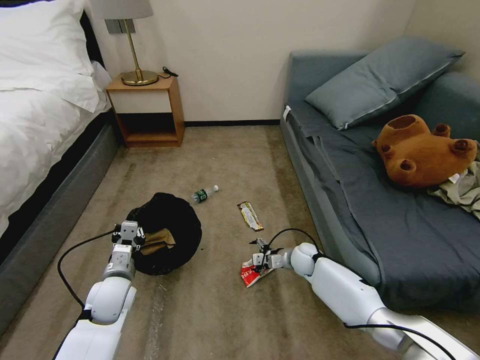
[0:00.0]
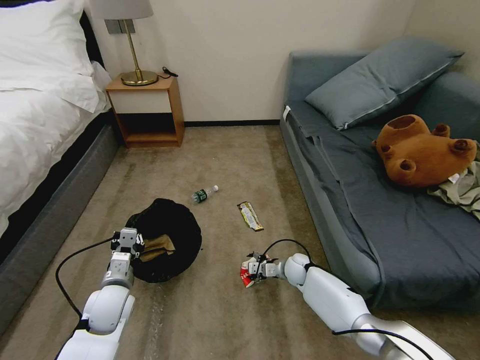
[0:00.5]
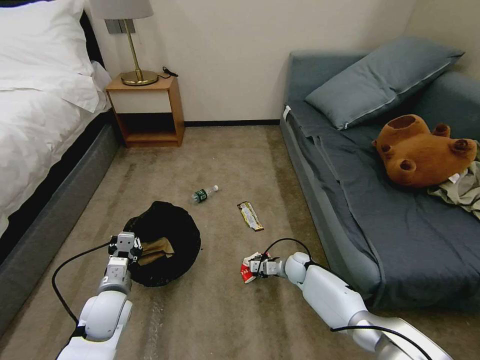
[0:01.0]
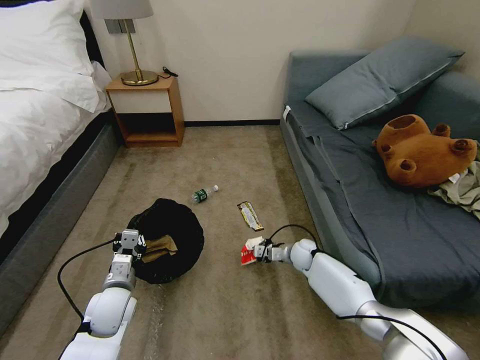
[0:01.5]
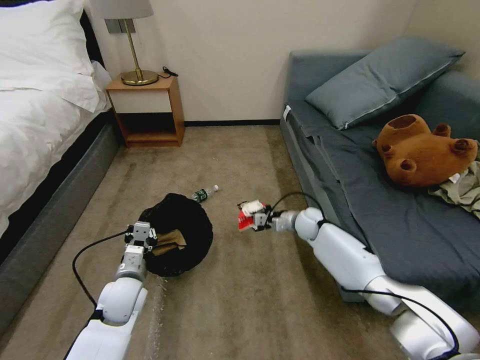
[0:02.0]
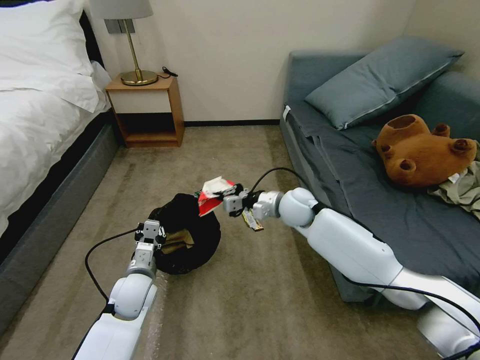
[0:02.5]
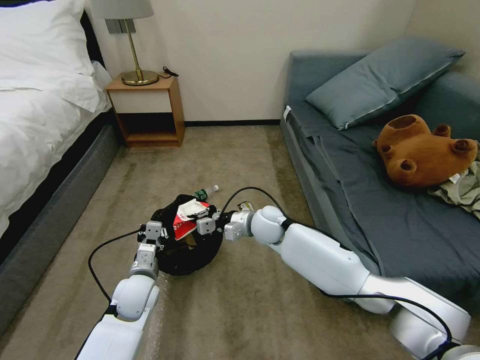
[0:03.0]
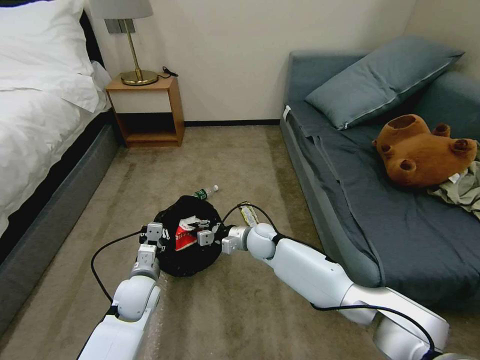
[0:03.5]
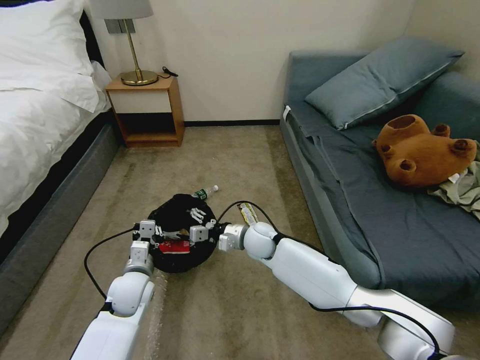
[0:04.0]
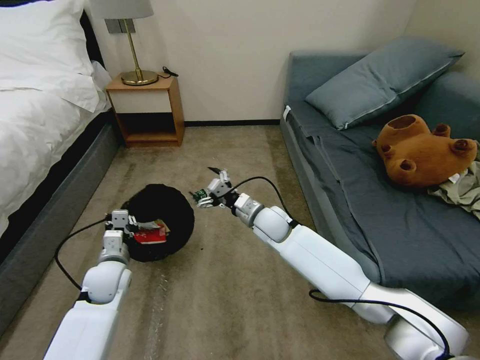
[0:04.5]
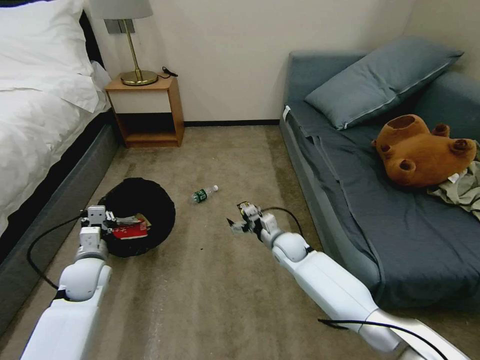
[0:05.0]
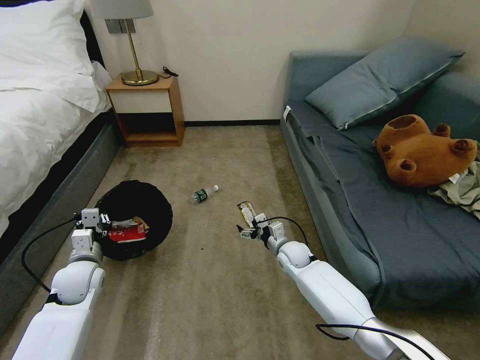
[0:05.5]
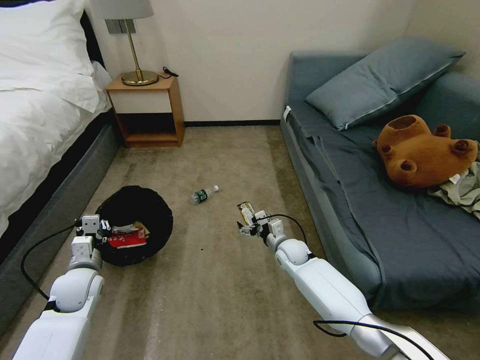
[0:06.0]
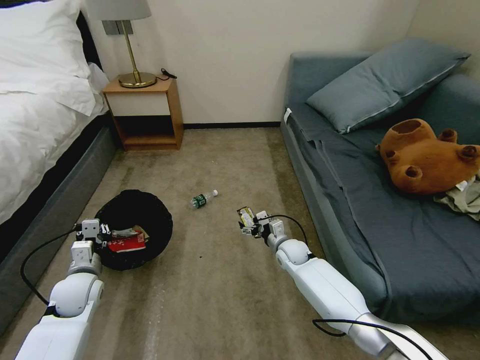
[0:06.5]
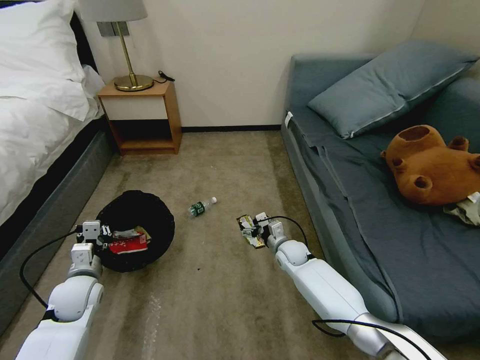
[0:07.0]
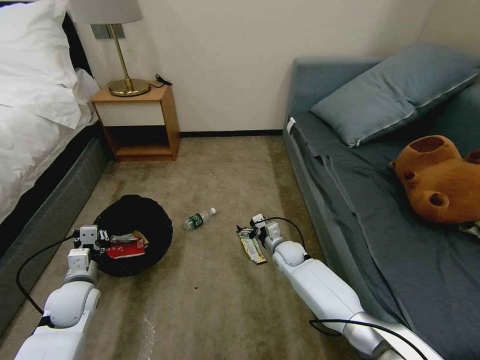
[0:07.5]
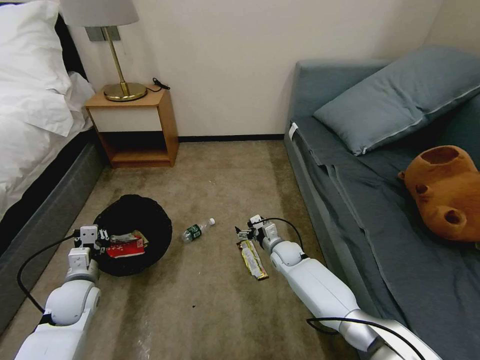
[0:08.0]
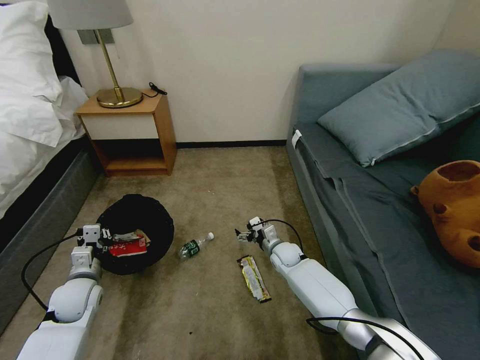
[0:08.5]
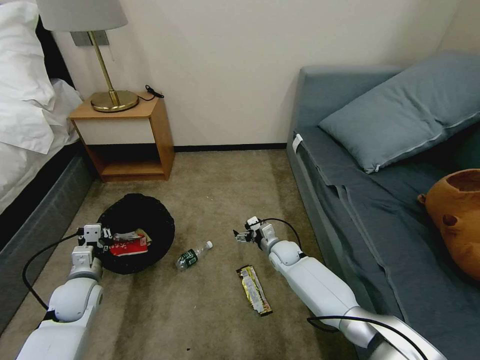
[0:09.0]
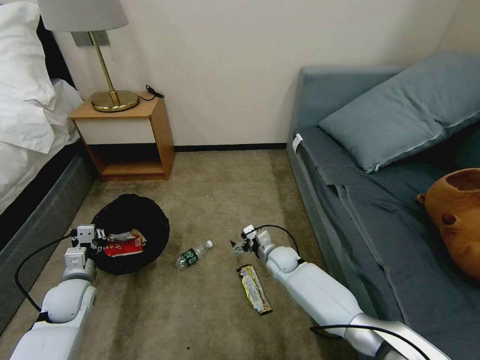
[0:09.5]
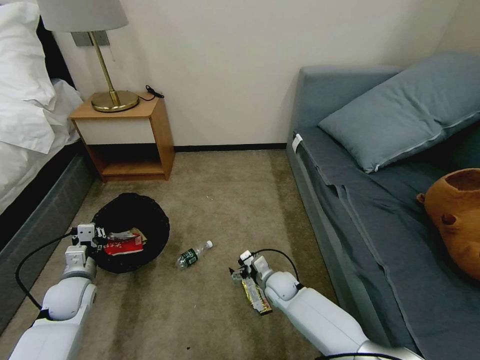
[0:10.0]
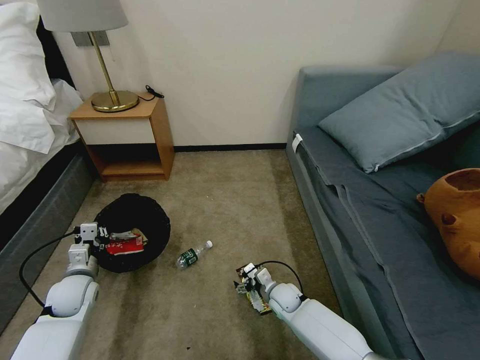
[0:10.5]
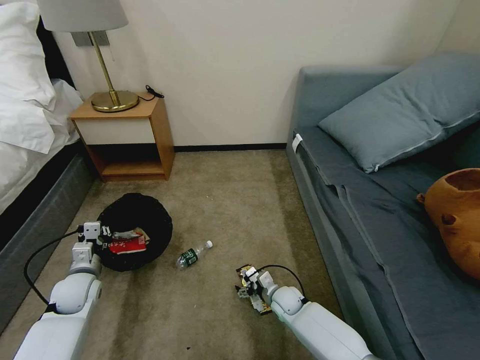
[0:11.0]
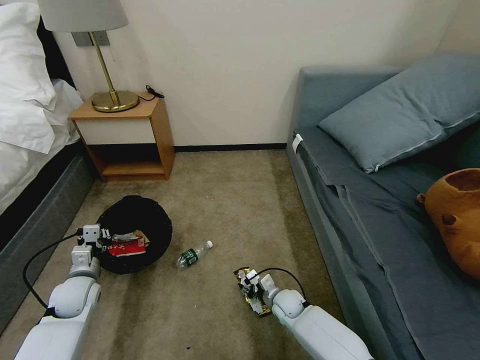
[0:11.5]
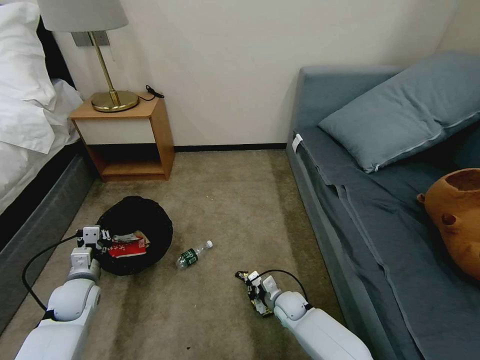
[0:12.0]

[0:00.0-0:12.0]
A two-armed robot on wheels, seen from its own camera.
Task of the whole recording: Pick up the trash bin, then pick up the garbage on the floor and place it into the trash bin.
0:00.0 to 0:02.0: The right gripper goes approximately 10 cm upward and forward, and closes up.
0:02.0 to 0:04.0: The right gripper goes some 20 cm to the left and backward, and opens up.
0:04.0 to 0:06.0: The left gripper shifts roughly 10 cm to the left, while the right gripper travels to the right and downward by approximately 15 cm.
0:08.0 to 0:10.0: The right gripper shifts approximately 10 cm backward.
0:10.0 to 0:12.0: The right gripper shifts by some 5 cm, and closes up.

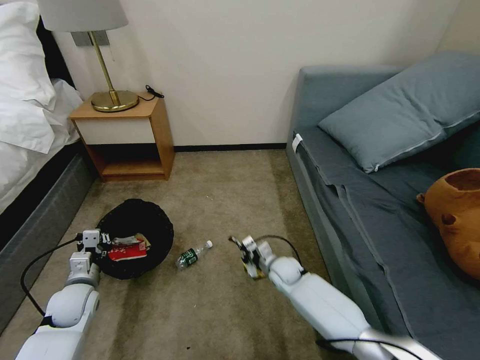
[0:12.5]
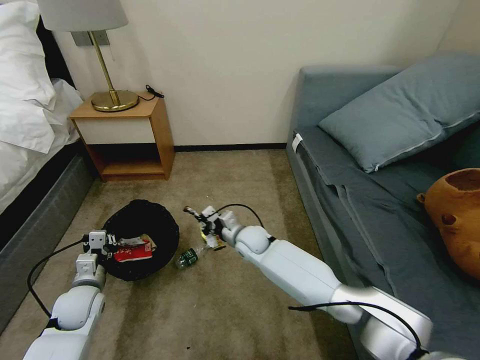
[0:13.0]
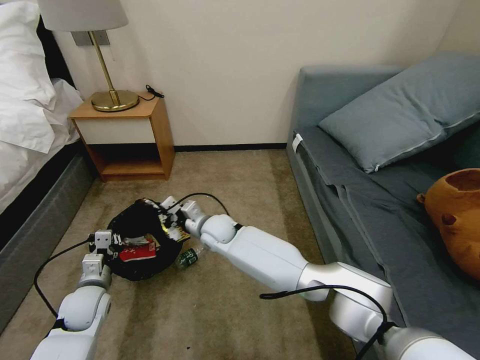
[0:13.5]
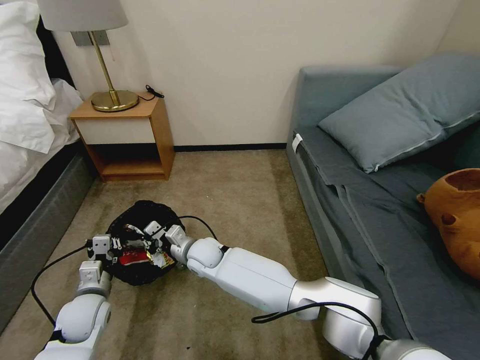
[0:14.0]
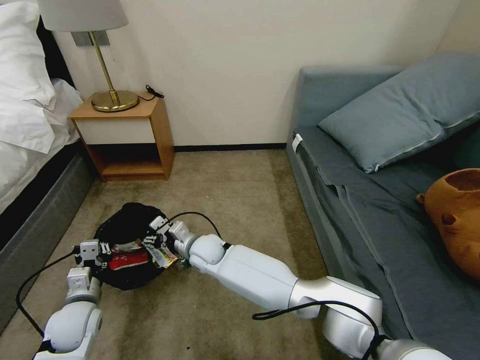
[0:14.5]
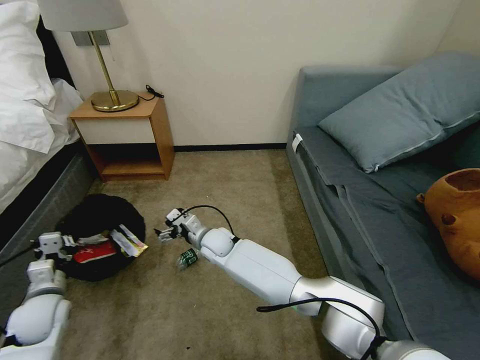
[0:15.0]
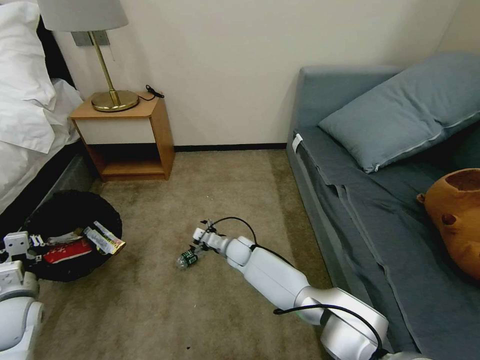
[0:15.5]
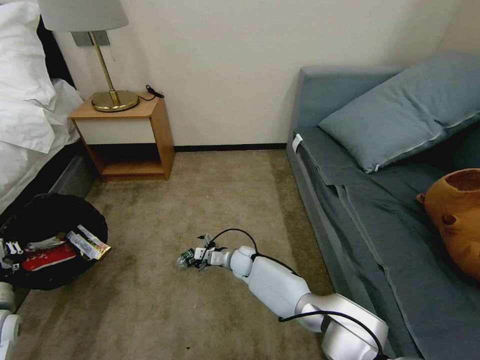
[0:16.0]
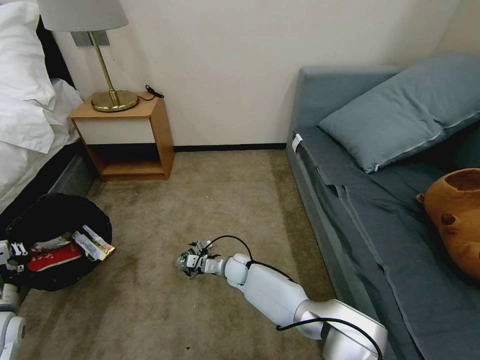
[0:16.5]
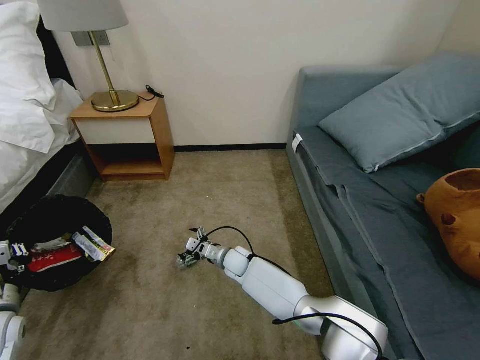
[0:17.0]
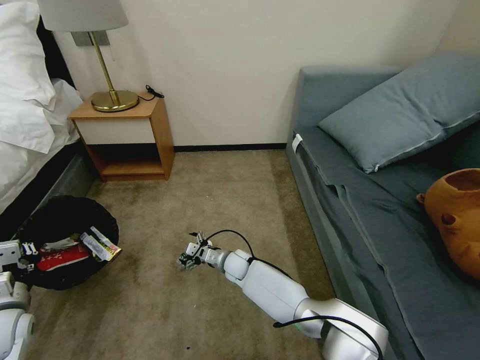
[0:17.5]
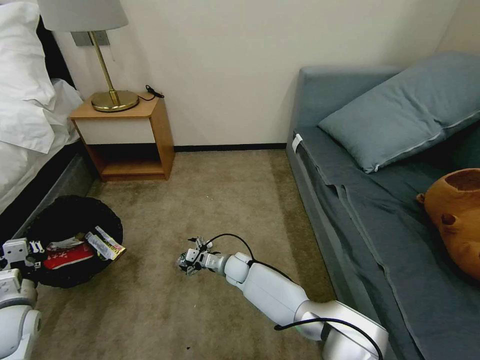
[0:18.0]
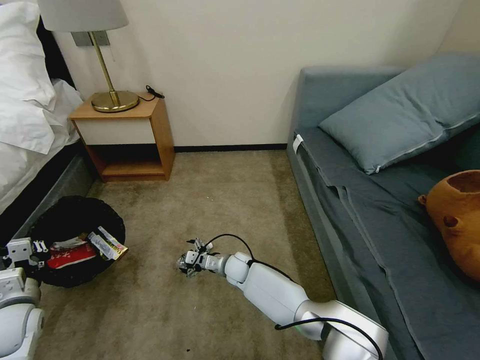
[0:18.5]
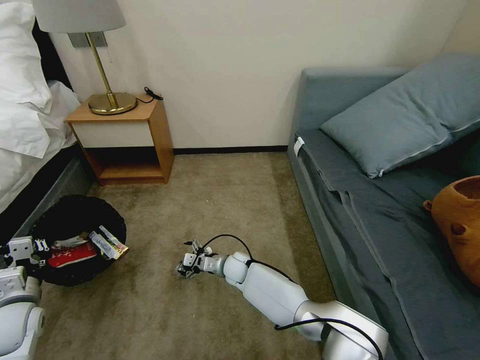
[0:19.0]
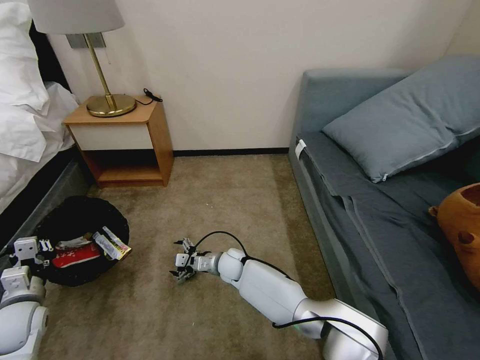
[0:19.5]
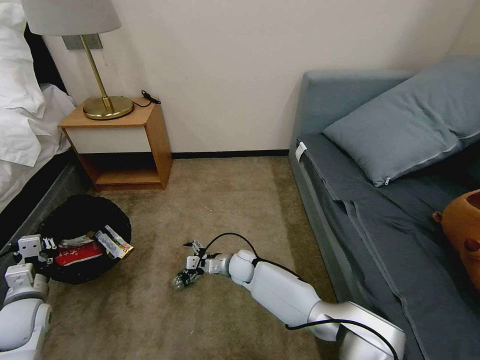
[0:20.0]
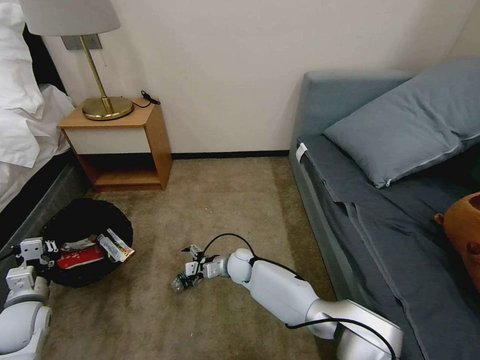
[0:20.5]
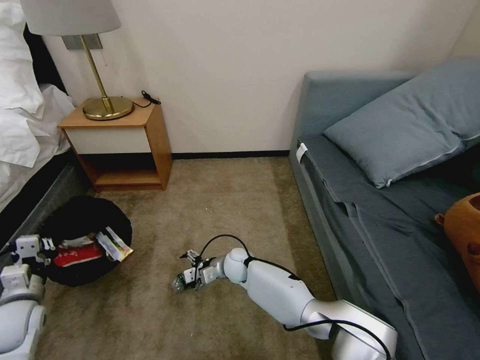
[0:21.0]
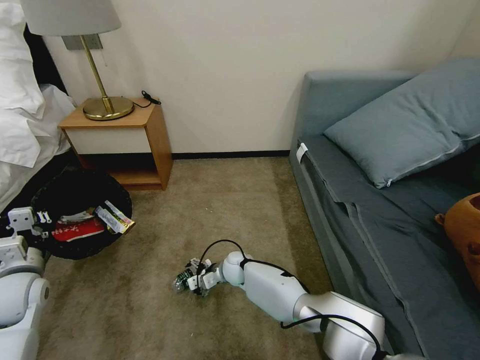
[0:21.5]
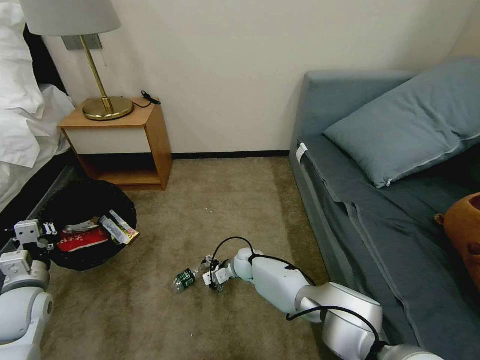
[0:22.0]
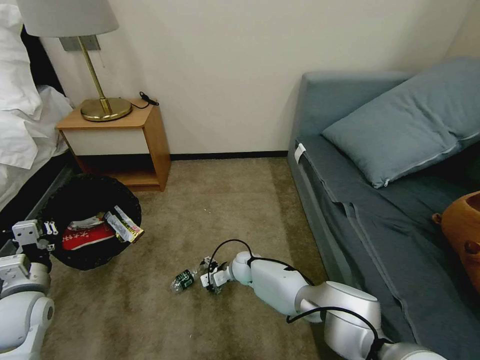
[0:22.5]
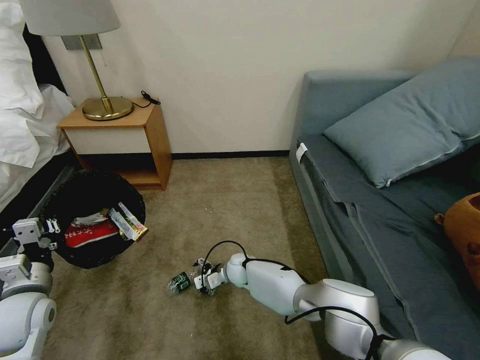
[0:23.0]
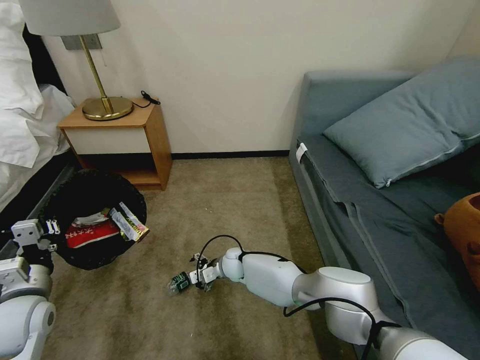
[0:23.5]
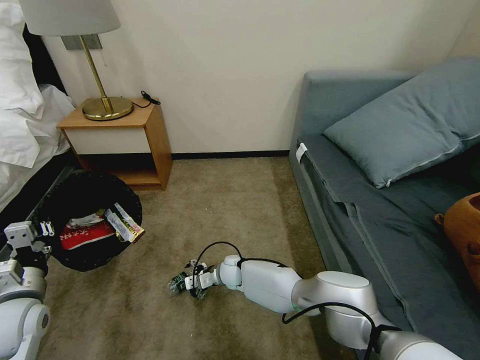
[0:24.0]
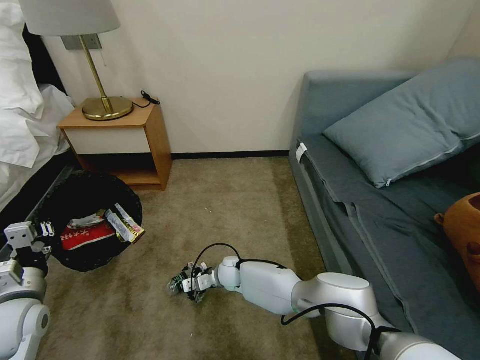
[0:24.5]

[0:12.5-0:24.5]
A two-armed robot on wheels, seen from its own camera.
Task of the whole recording: Pick up the trash bin, then pick up the garbage on the floor and place it into the trash bin.
0:12.5 to 0:14.5: The right gripper goes roughly 25 cm to the left and upward, and opens up, while the left gripper shifts by some 5 cm.
0:14.5 to 0:16.5: The left gripper travels to the left and upward by approximately 15 cm. Meanwhile the right gripper moves downward and to the right, roughly 15 cm.
0:16.5 to 0:18.5: The grippers make only small movements.
0:20.5 to 0:22.5: The left gripper goes roughly 5 cm upward, while the right gripper ends up approximately 5 cm from where it was.
0:22.5 to 0:24.5: The grippers stay close to where they were, moving slightly.

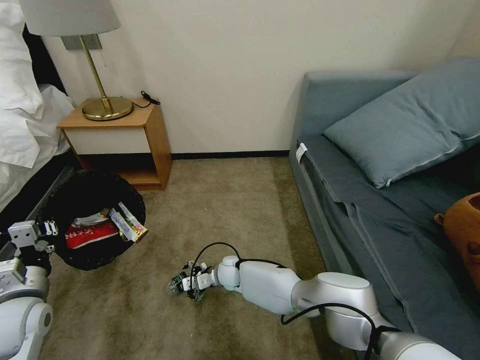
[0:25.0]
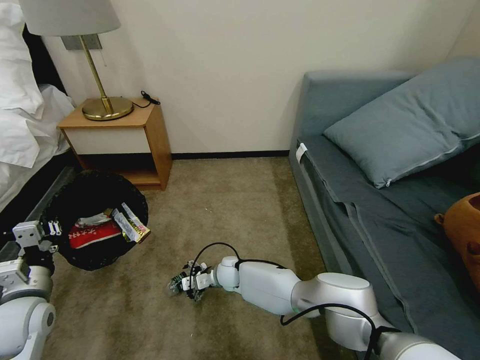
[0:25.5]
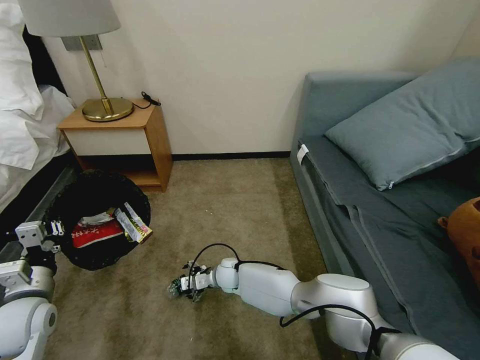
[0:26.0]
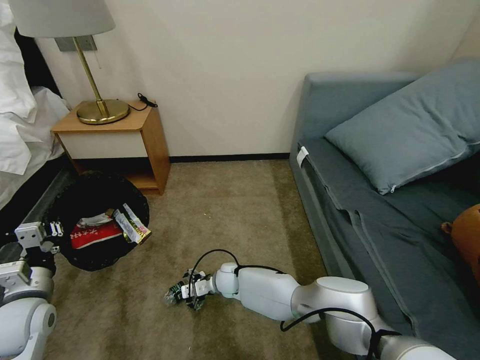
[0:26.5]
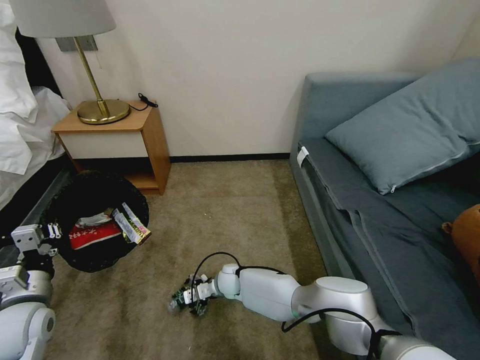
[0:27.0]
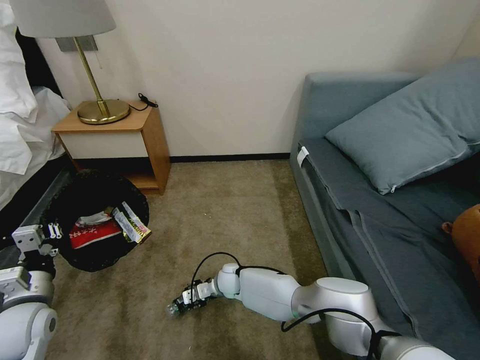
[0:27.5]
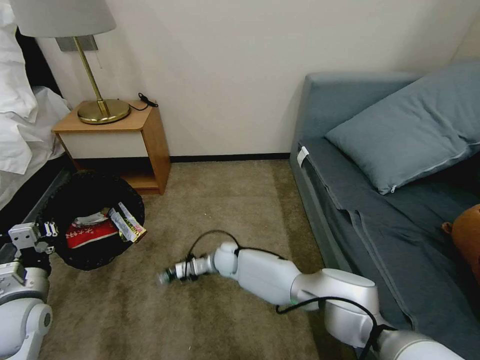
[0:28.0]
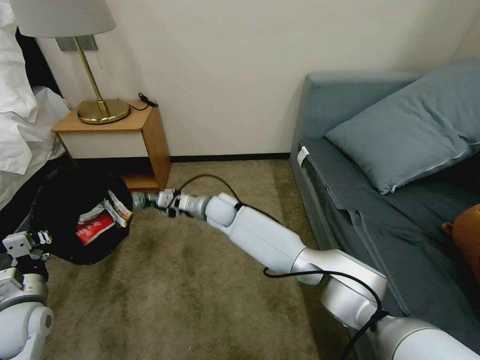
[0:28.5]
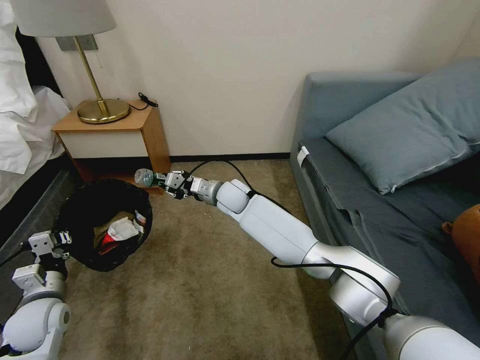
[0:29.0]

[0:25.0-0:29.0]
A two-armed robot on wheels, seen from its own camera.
Task of the whole recording: Pick up the trash bin, then pick up the garbage on the floor and place it into the trash bin.
0:25.0 to 0:27.0: The grippers stay close to where they were, moving slightly.
0:27.0 to 0:29.0: The right gripper travels upward and forward by about 30 cm, and closes up.
